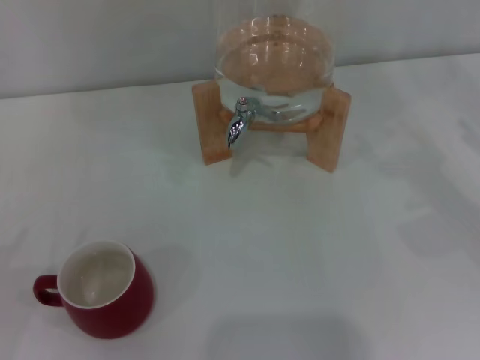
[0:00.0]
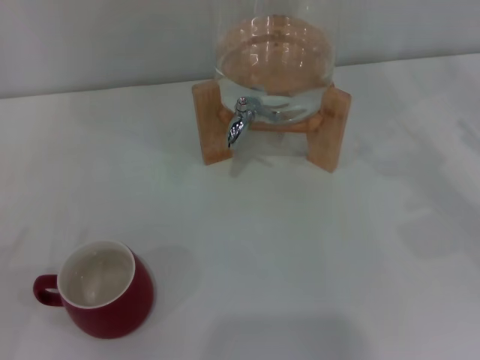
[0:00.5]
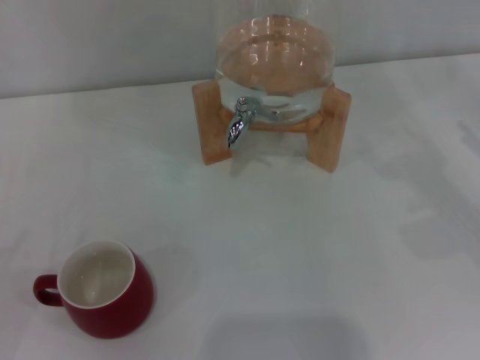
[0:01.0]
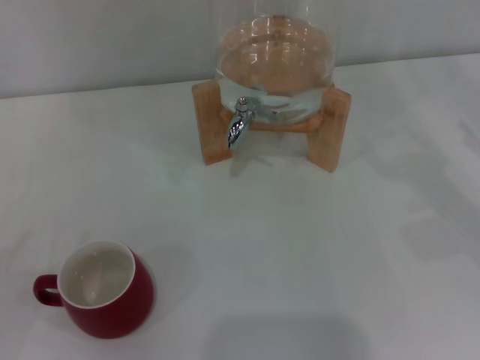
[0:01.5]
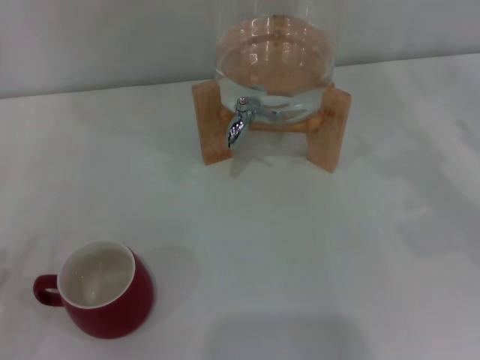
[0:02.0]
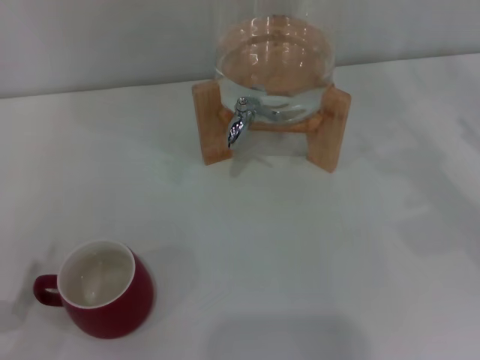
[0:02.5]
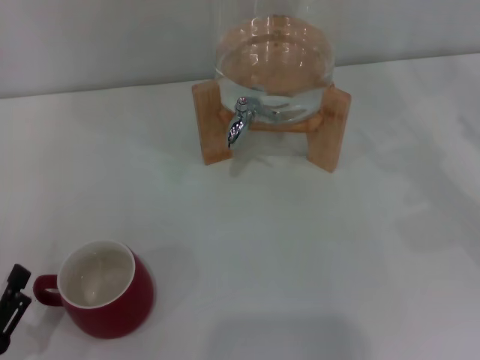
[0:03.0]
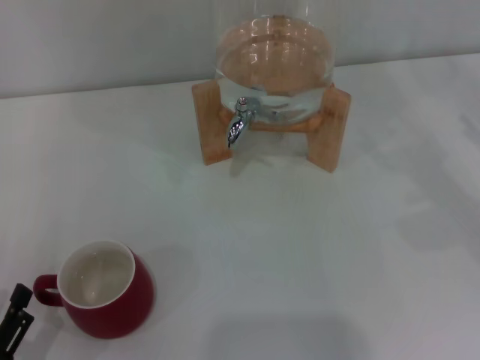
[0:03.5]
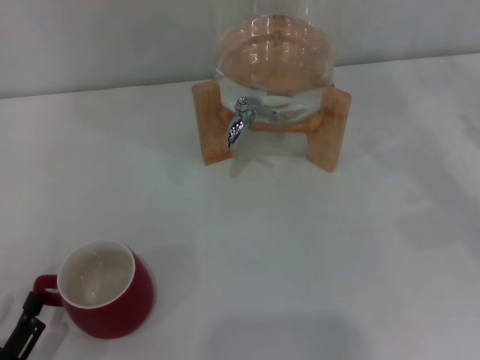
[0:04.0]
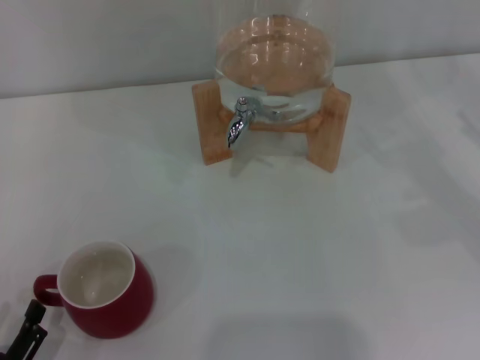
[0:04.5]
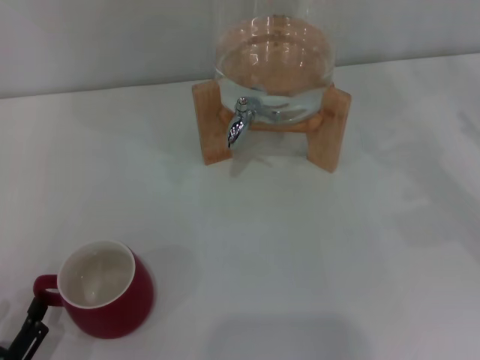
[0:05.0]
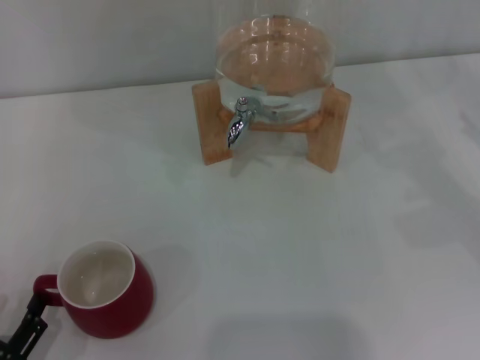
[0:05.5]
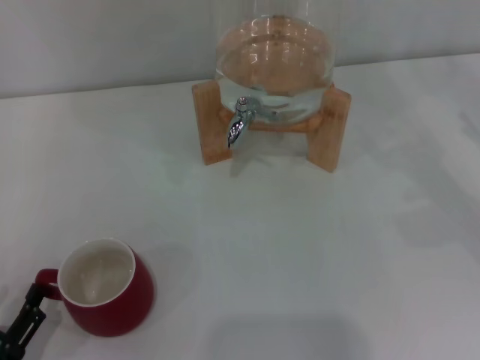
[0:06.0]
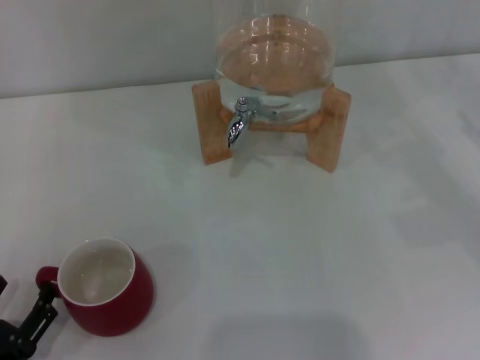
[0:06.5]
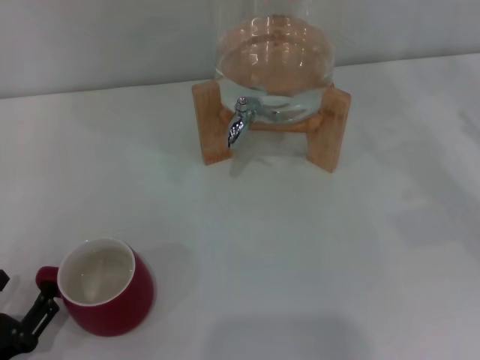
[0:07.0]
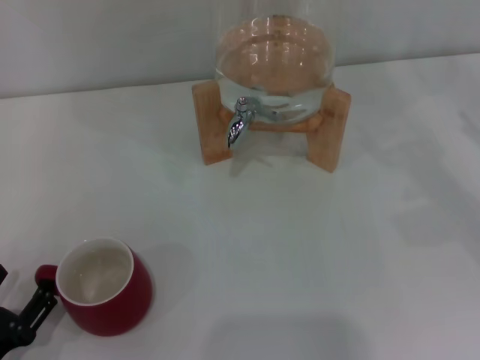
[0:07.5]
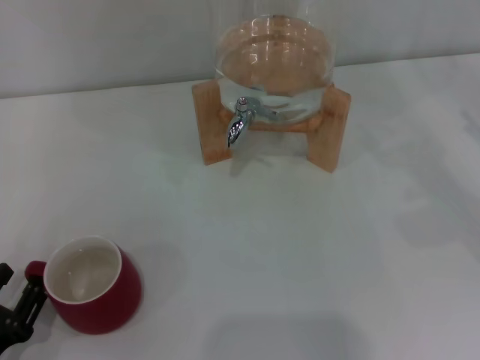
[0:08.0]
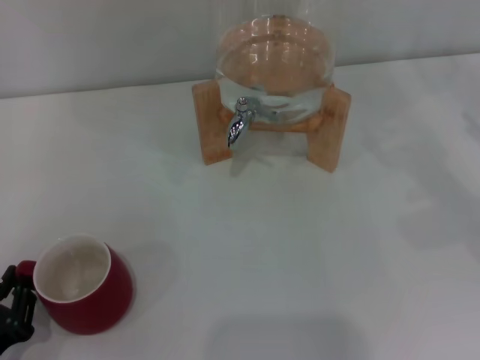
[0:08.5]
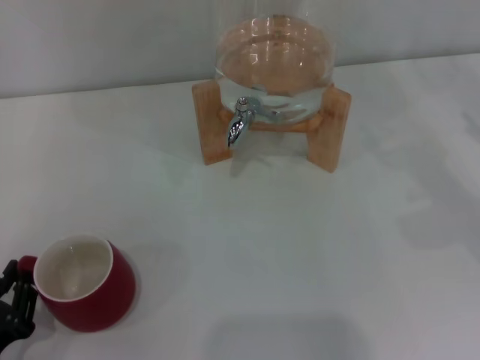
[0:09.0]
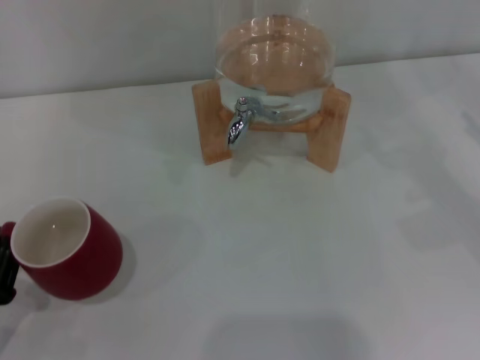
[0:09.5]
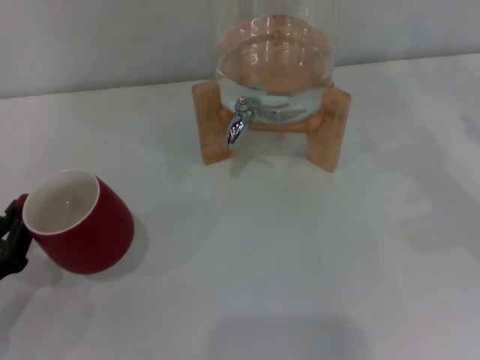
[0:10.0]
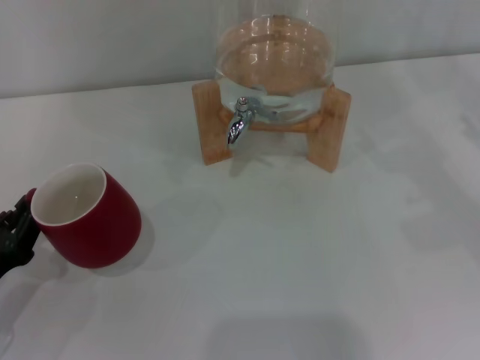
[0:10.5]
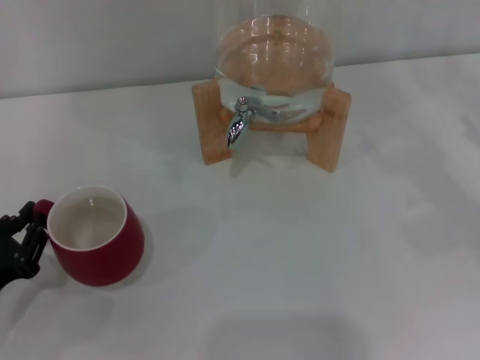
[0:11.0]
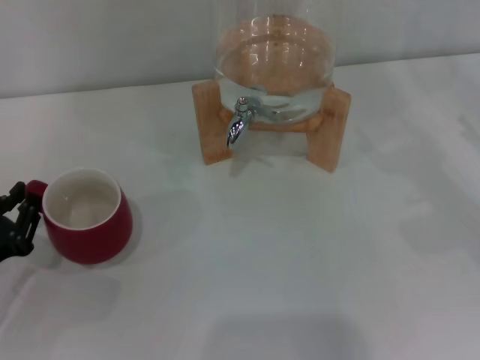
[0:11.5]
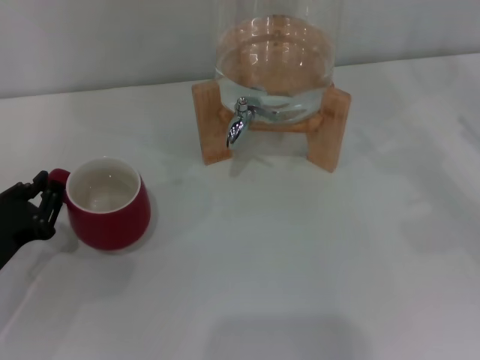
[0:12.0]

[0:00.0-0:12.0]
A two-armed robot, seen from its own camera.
Task of the whole recording: the left gripper pick up the red cup and place it horizontally under the faucet, the right gripper turn on the faucet to fill the cup, and then turn off the faucet.
0:02.0 to 0:04.0: The left gripper goes about 10 cm to the right and backward.
0:04.0 to 0:08.0: The grippers move only a little.
0:08.0 to 0:10.0: The left gripper moves forward, some 5 cm, and closes up.
0:10.0 to 0:12.0: The left gripper moves forward, about 5 cm.

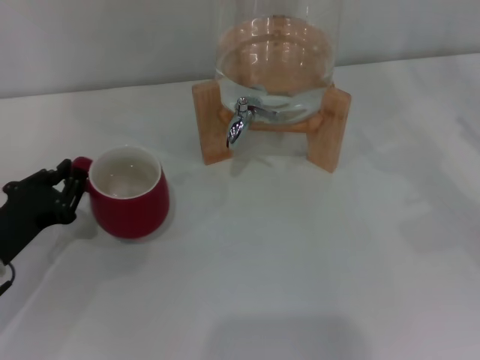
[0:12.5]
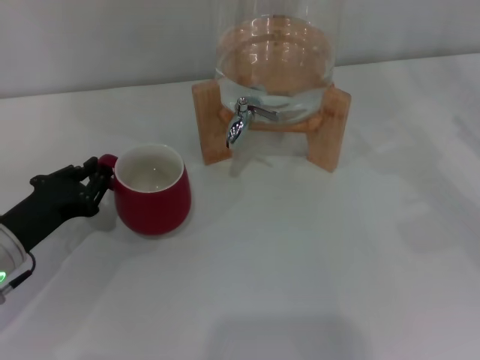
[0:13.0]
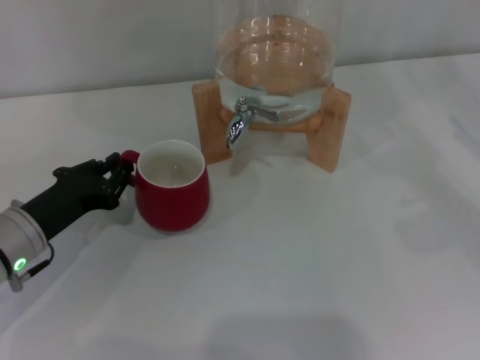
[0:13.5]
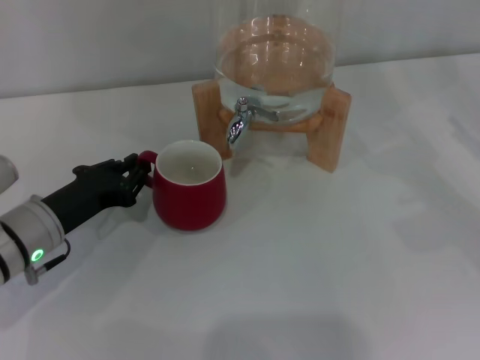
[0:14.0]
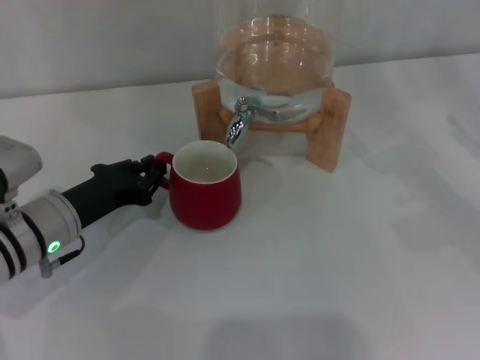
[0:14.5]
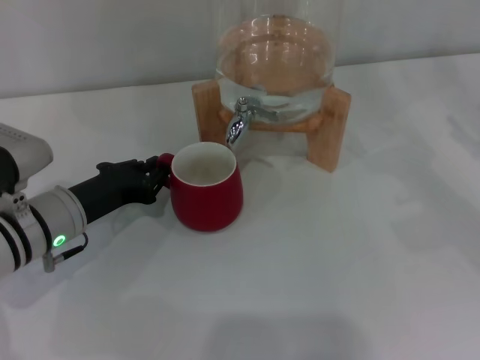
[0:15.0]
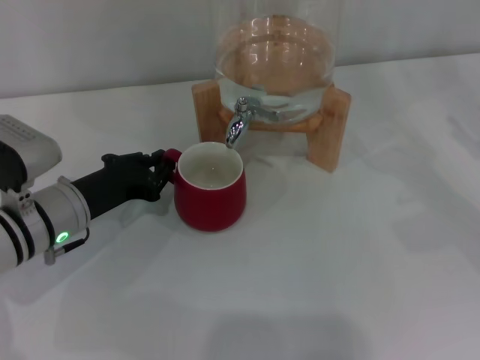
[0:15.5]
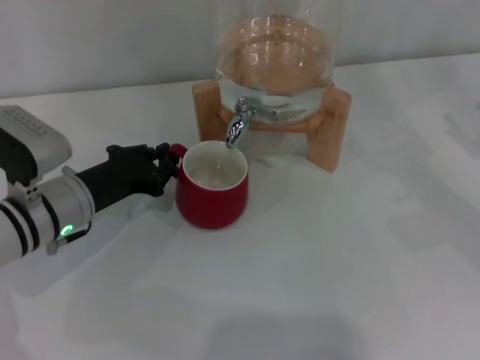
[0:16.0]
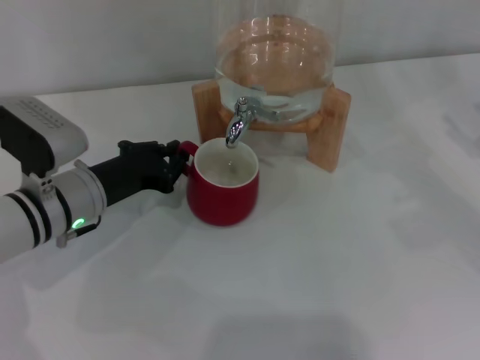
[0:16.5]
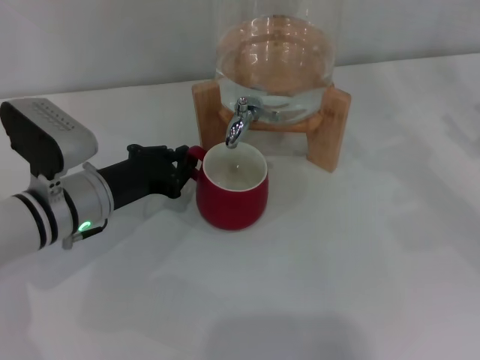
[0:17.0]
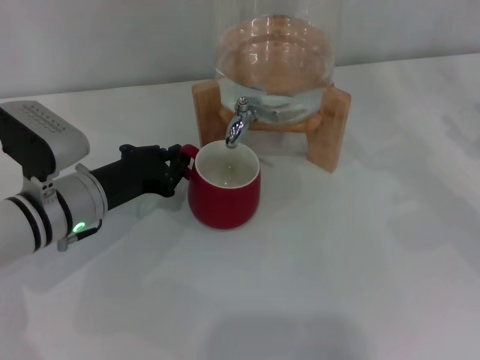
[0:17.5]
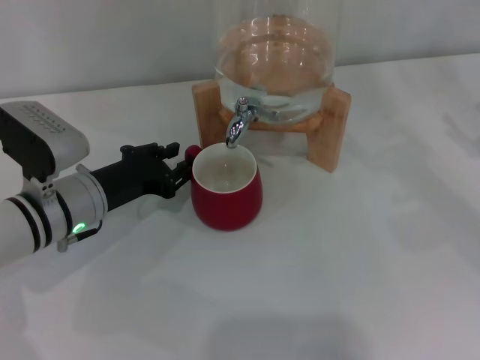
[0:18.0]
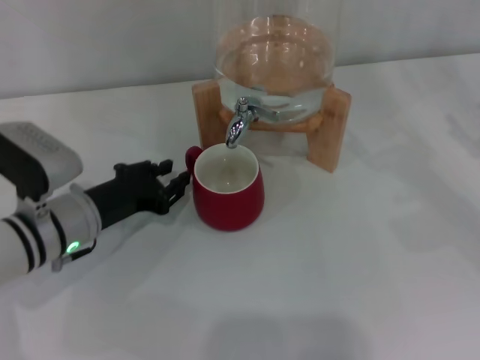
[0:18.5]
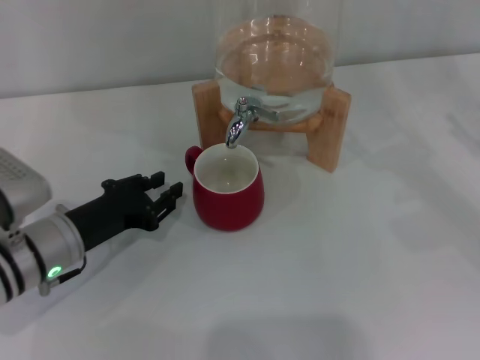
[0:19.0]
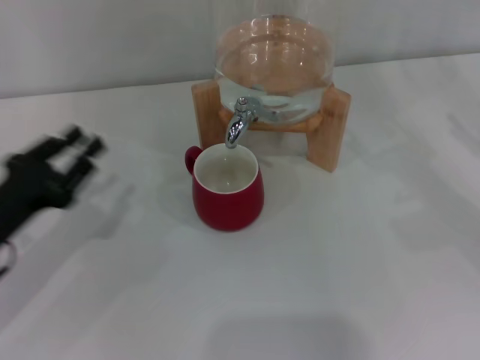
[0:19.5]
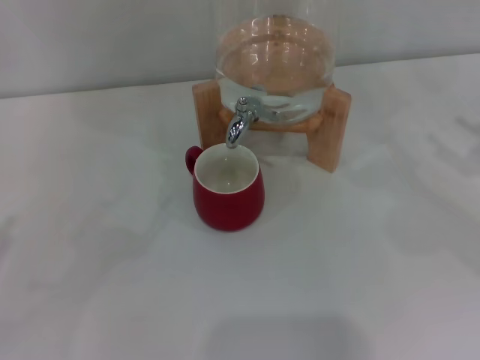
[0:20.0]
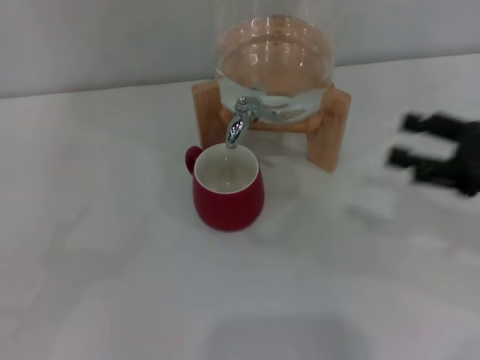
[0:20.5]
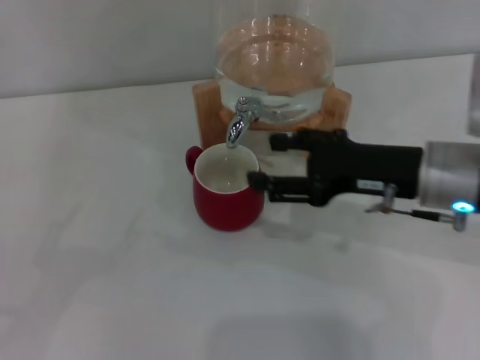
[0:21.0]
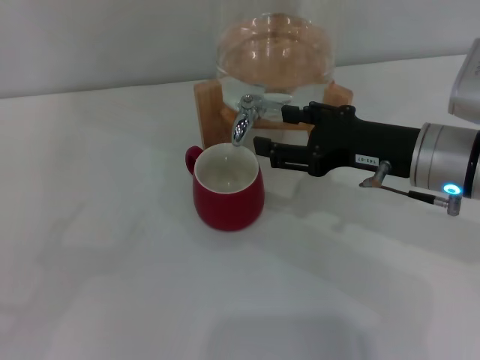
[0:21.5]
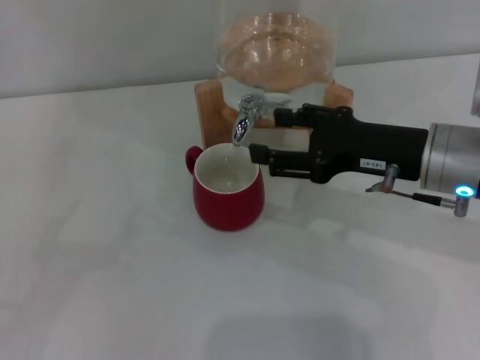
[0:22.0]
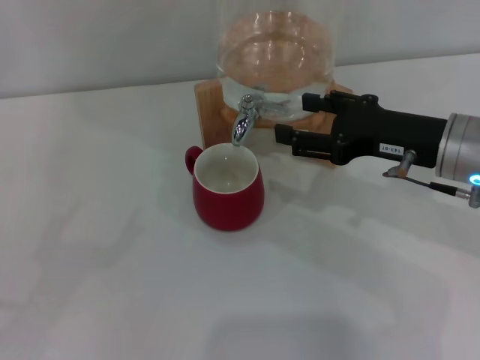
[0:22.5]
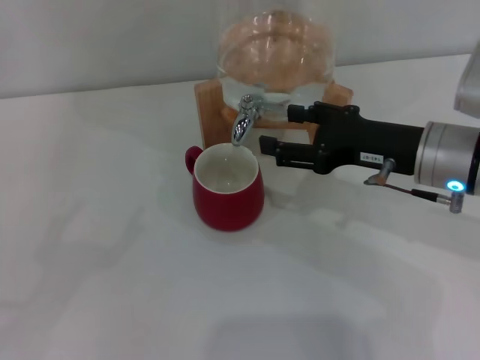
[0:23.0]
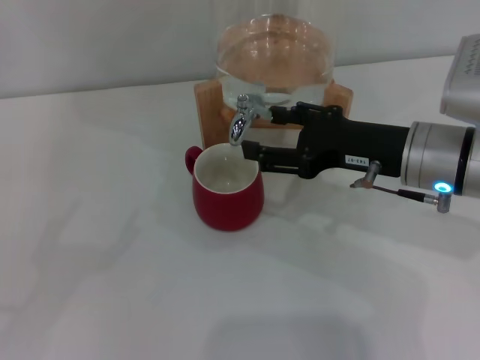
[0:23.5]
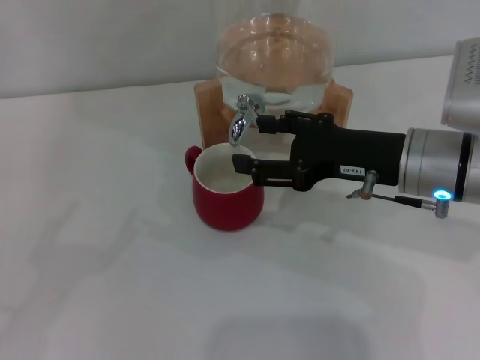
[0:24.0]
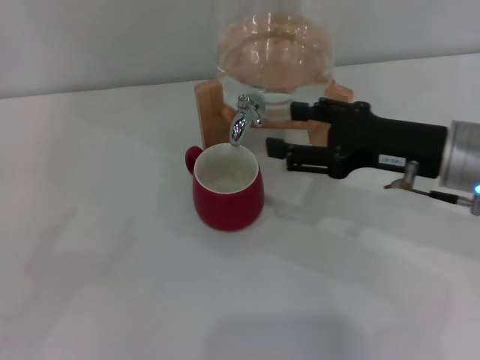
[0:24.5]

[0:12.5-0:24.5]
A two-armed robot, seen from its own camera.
Task of the whole recording: the left gripper pick up the red cup and place it horizontally under the faucet, the right gripper turn on the faucet to fill the cup, and then turn off the faucet.
Step, 0:12.5 to 0:19.0: Move the cup beneath the water dispenser nozzle with the left gripper.
0:12.5 to 0:14.5: The left gripper moves to the right, some 5 cm.
0:14.5 to 0:18.5: The grippers make only small movements.
0:18.5 to 0:20.5: The left gripper is displaced to the left and backward by some 25 cm, and opens its fingers. The right gripper goes some 5 cm to the left.
0:20.5 to 0:22.5: The right gripper heads to the left, covering approximately 10 cm.
0:22.5 to 0:24.5: The grippers make only small movements.

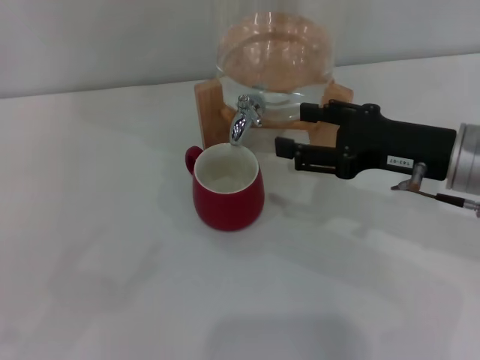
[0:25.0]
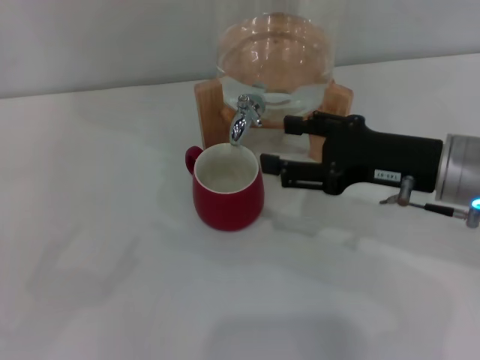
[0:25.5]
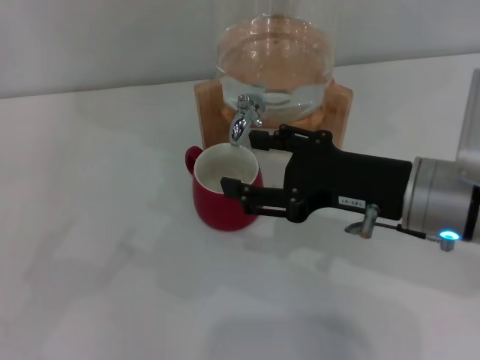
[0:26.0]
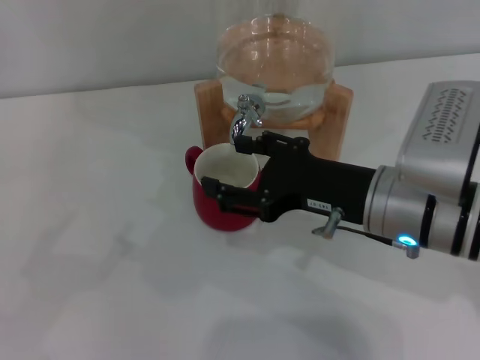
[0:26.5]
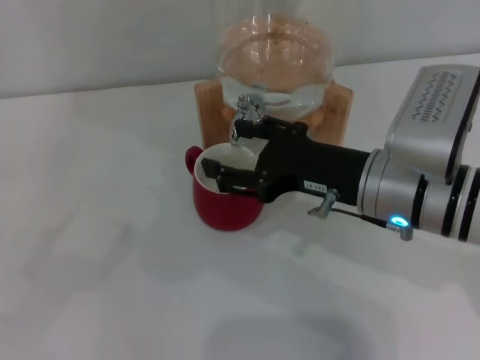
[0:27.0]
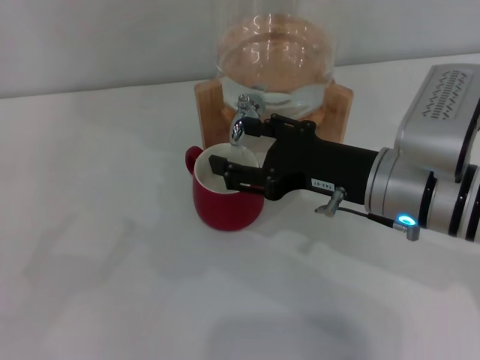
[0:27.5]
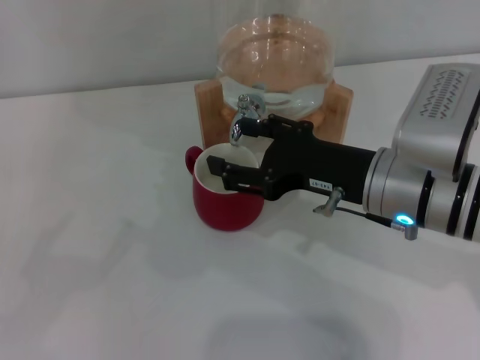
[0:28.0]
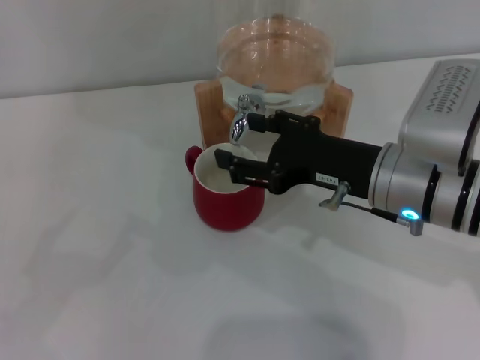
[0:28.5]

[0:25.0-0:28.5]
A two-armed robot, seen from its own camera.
Task of the whole recording: the left gripper pick up the red cup and place it horizontally under the faucet, the right gripper turn on the faucet to fill the cup, and then turn off the faucet.
Step, 0:25.0 to 0:27.5: Open the dispenser valve and fill the cup with water with the right gripper.
0:25.0 to 0:27.0: The right gripper is displaced to the left by approximately 10 cm.
0:27.0 to 0:28.5: Both grippers stay about where they are.
